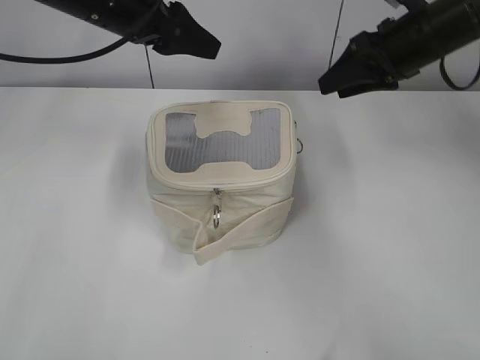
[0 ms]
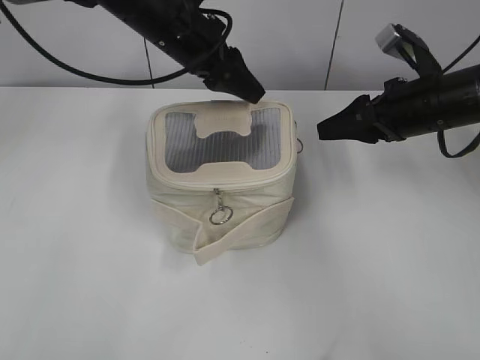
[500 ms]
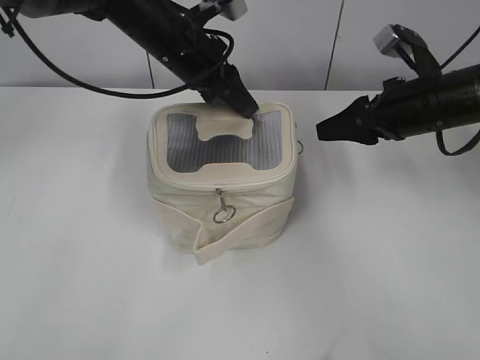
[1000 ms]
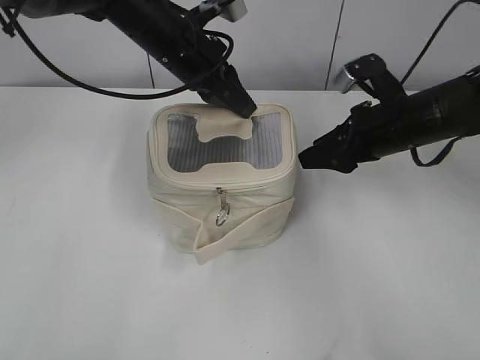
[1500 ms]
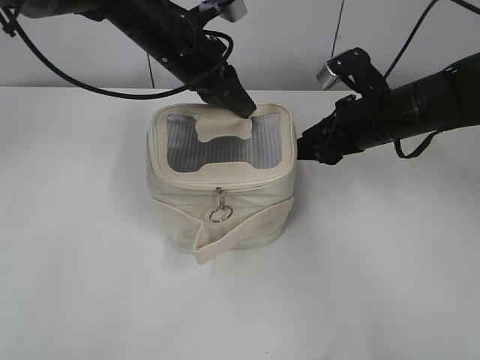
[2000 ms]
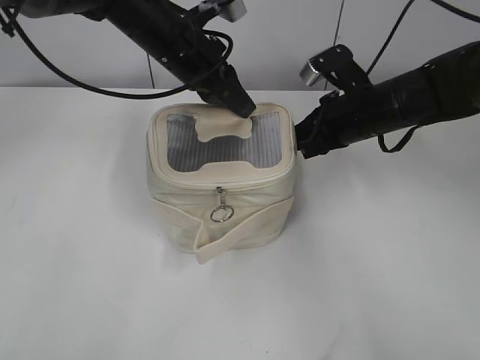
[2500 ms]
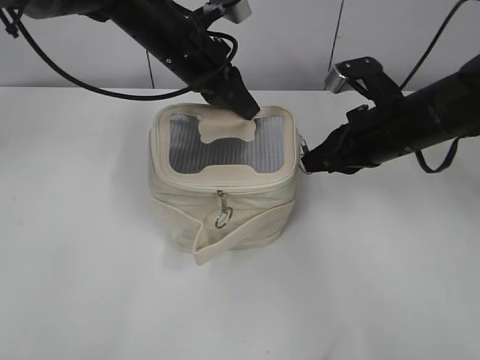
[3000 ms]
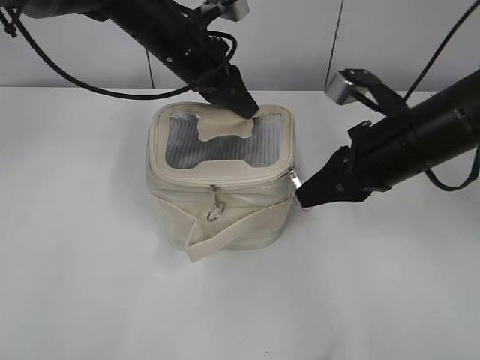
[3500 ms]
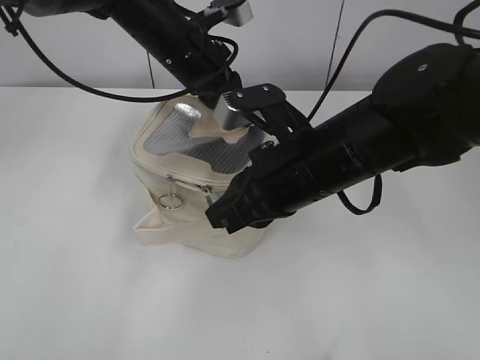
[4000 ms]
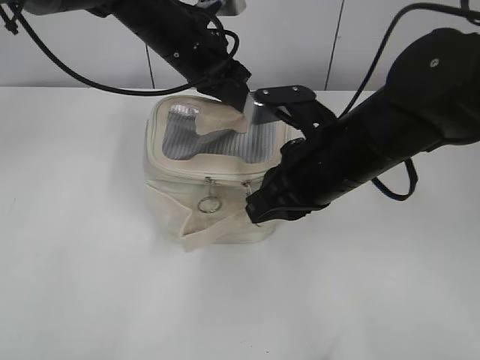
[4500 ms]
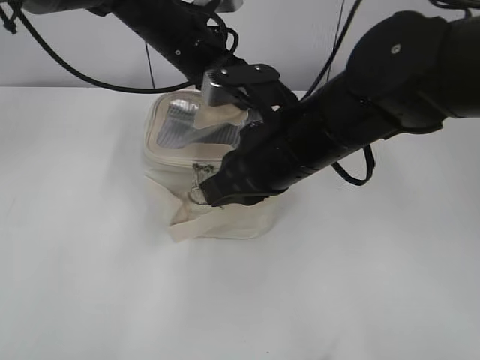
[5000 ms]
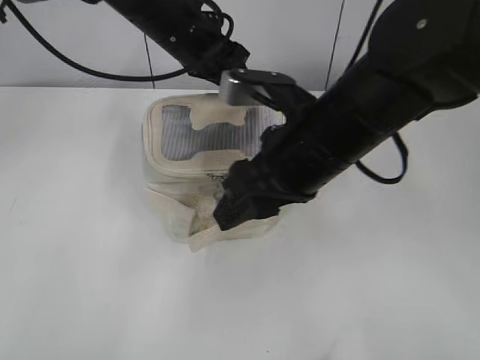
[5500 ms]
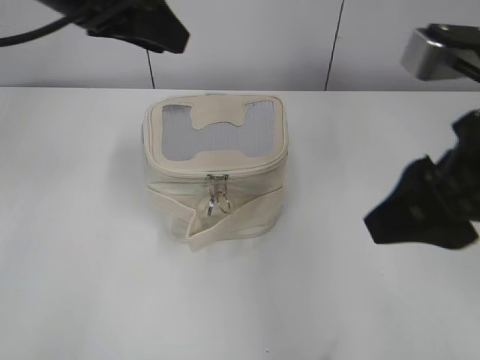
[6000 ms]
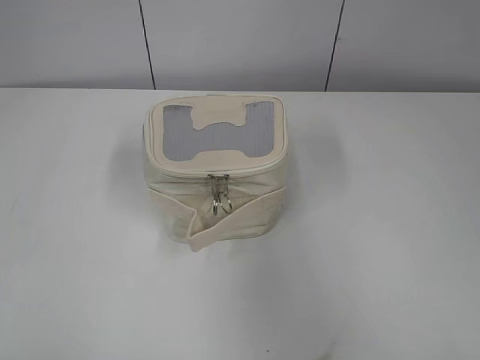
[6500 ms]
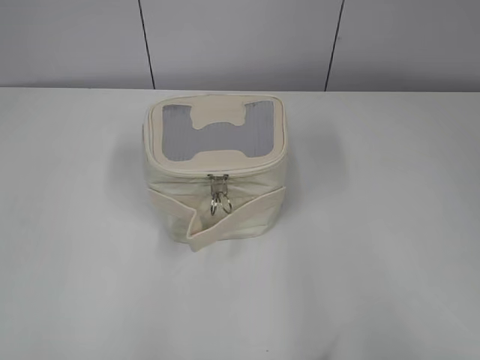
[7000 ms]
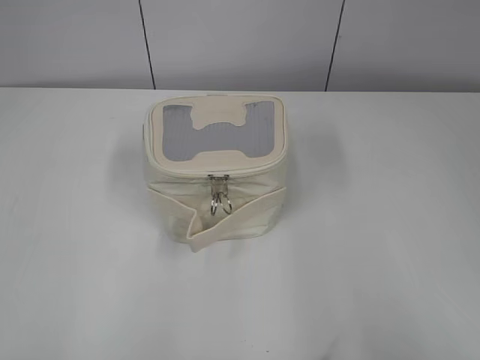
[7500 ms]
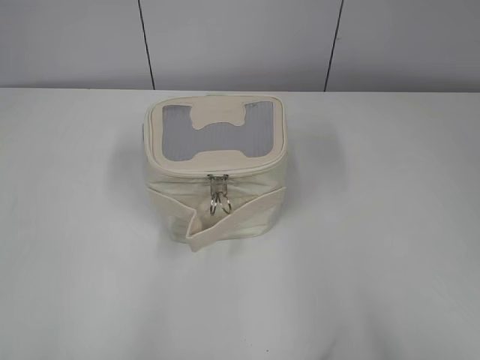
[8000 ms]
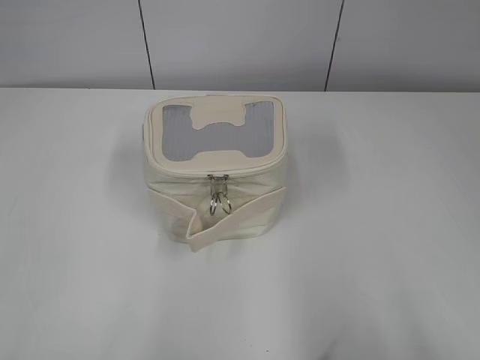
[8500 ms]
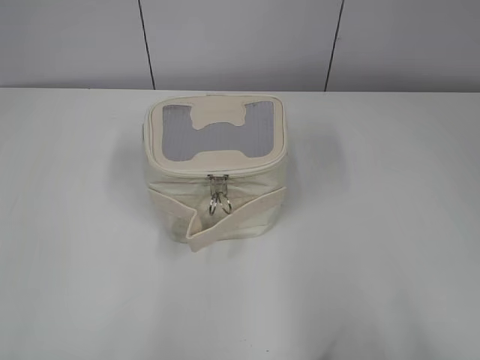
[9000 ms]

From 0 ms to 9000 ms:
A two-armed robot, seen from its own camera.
Step, from 0 ms to 5000 ms: Zip up the bag with your right hand.
From 0 ms to 2000 ms: The right gripper travels downward and backward by some 10 cm, while the left gripper heads to the right and downward, covering roughly 10 cm, and closes.
From 2000 ms to 4500 ms: The right gripper moves backward and to the left, approximately 15 cm, and closes up.
From 4500 ms to 7000 ms: The left gripper heads backward and to the left, covering approximately 50 cm, and opens its fingers. Meanwhile the right gripper is displaced backward and to the right by approximately 30 cm, and opens its fingers.

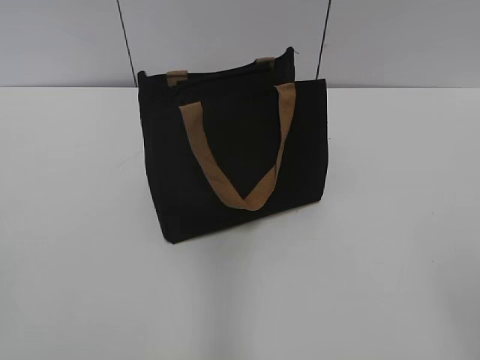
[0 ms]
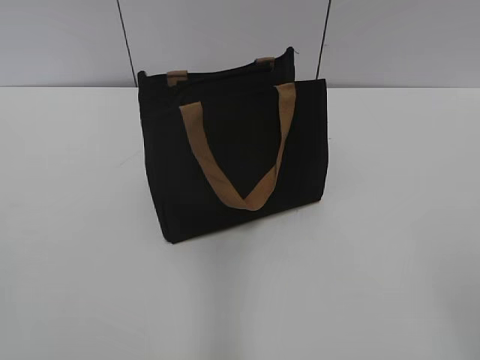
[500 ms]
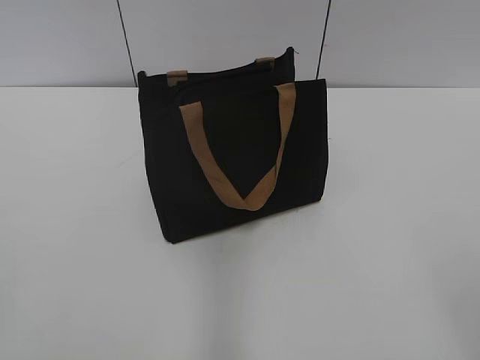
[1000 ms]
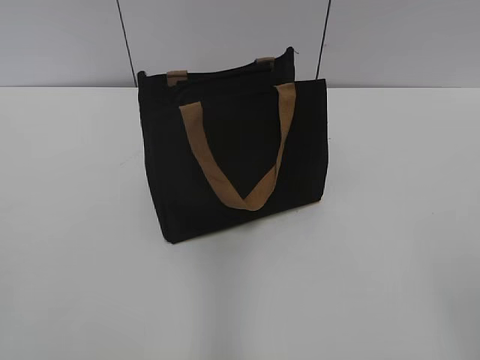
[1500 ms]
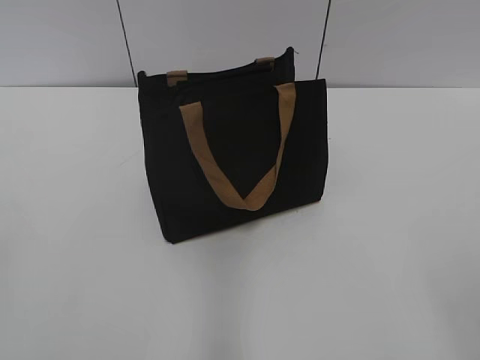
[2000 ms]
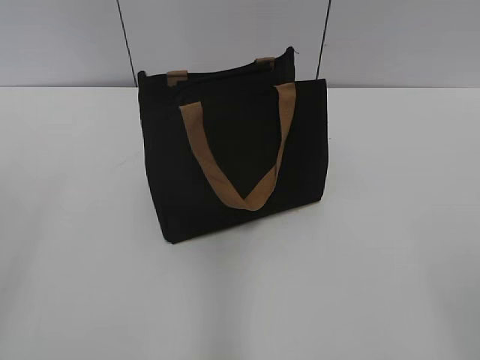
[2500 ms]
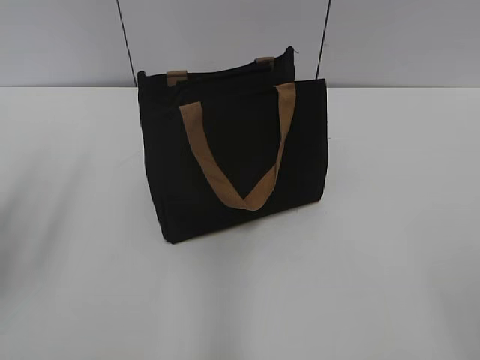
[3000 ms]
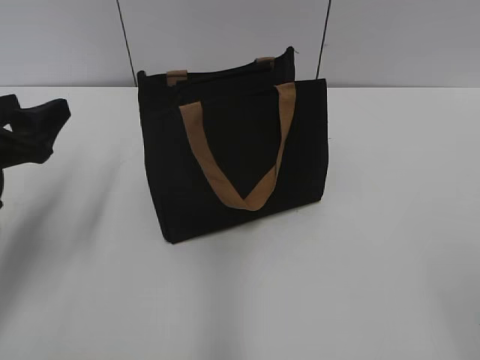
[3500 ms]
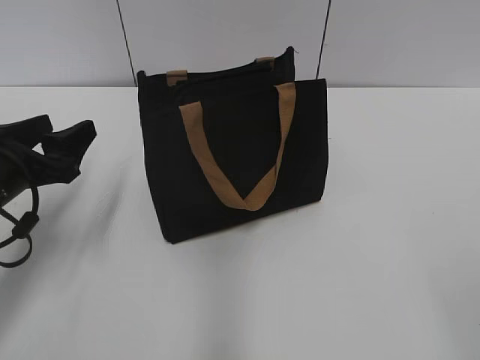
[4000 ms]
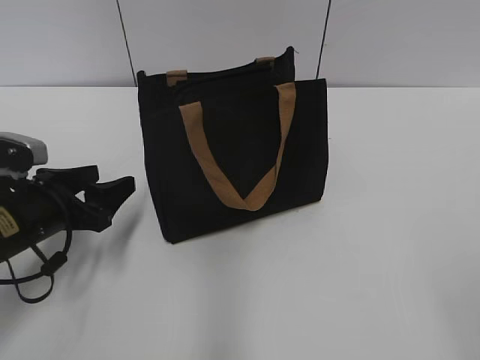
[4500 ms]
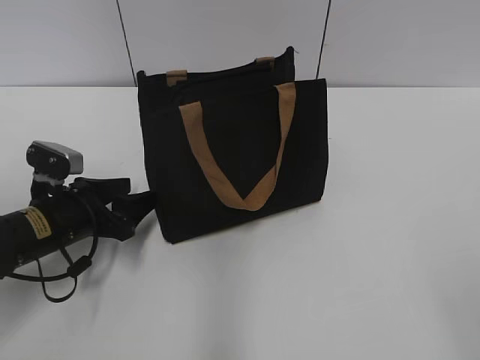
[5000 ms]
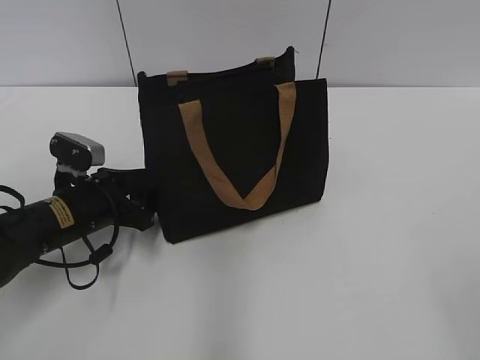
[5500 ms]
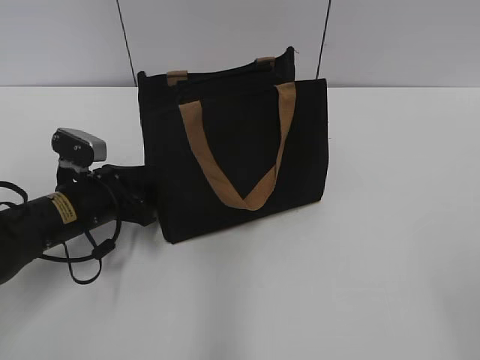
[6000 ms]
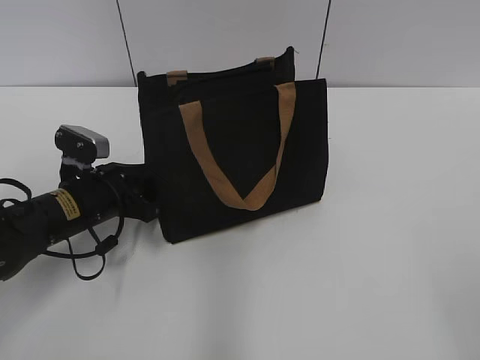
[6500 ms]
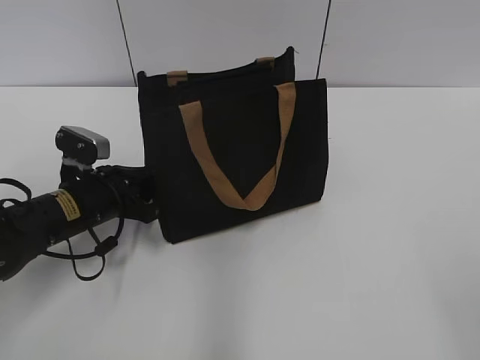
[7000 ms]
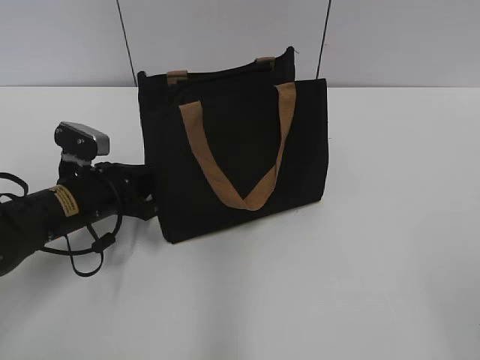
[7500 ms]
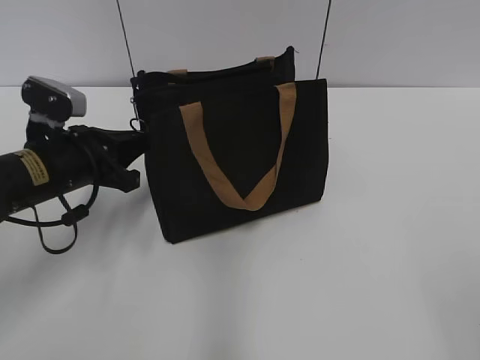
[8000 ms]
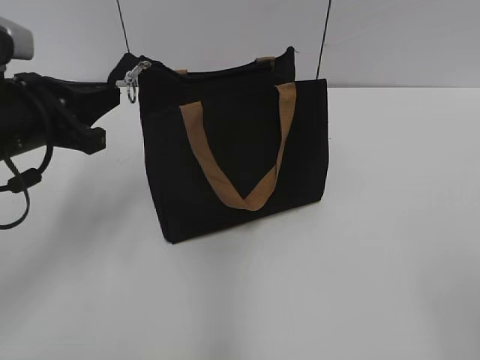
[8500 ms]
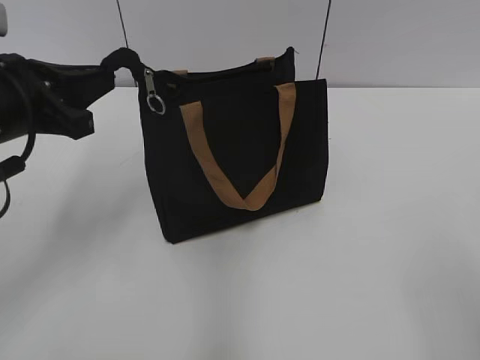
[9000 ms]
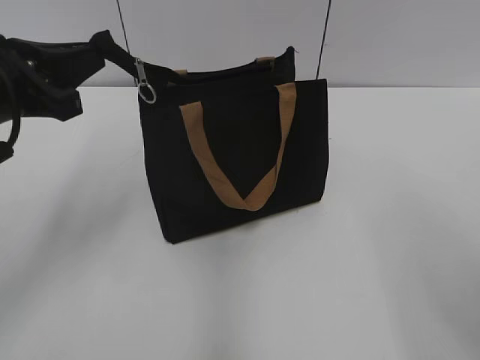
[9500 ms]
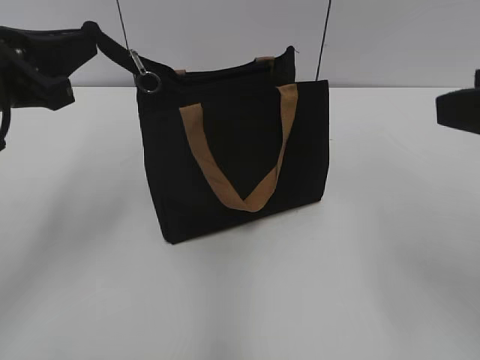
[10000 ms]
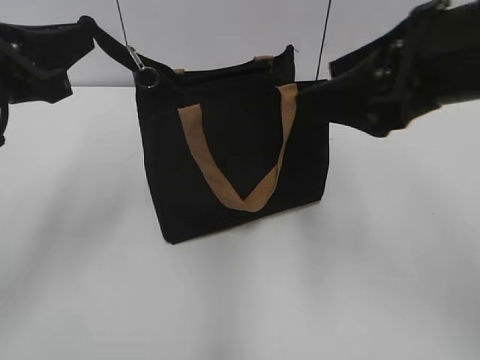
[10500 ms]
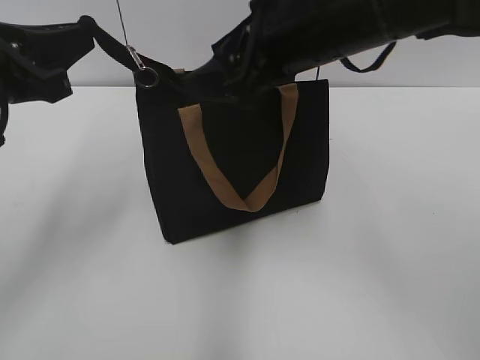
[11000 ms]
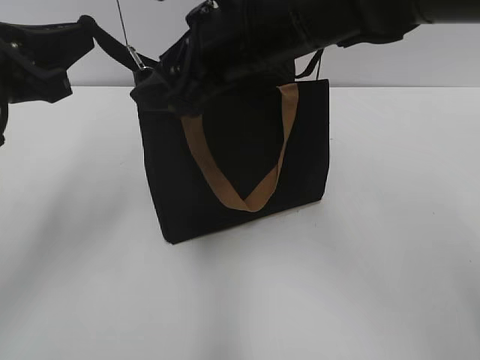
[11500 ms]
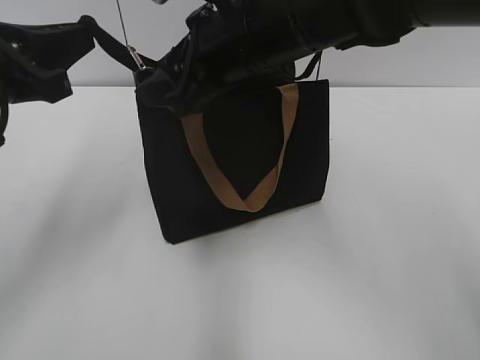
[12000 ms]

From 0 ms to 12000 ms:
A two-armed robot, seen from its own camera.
From 2000 ms to 4000 ms: The left gripper travels forward and downward by some 30 cm.
From 4000 ms to 6000 ms: The left gripper goes about 10 cm downward and to the right, and closes.
From 6000 ms to 8000 ms: The left gripper heads upward, covering some 5 cm, and closes.
From 8000 ms to 10000 ms: The right gripper is displaced forward by about 20 cm; the left gripper shifts approximately 15 cm upward and backward.
From 10000 ms to 12000 ms: The right gripper is displaced to the left and forward by about 25 cm.

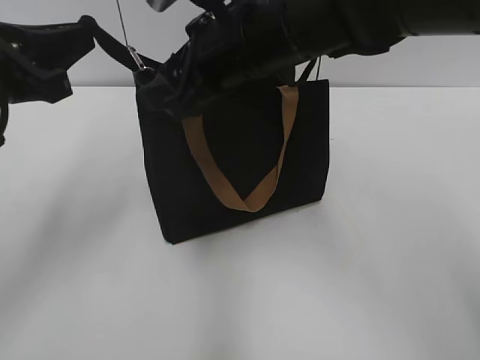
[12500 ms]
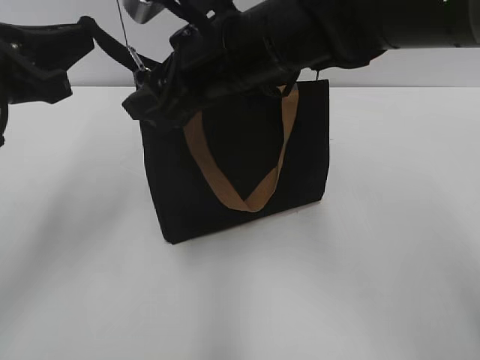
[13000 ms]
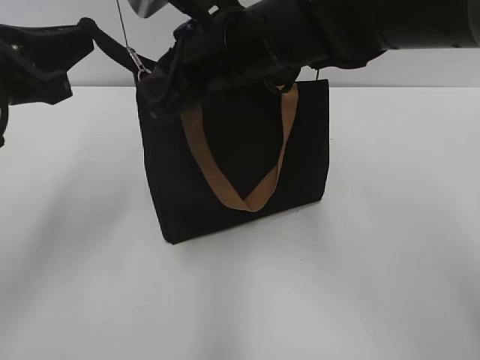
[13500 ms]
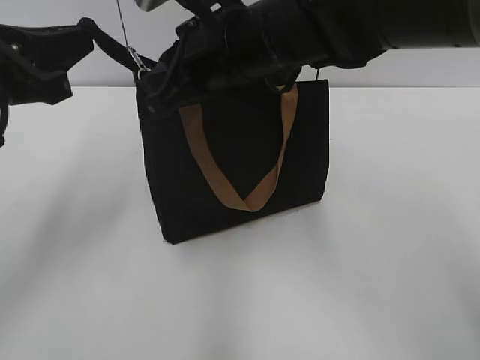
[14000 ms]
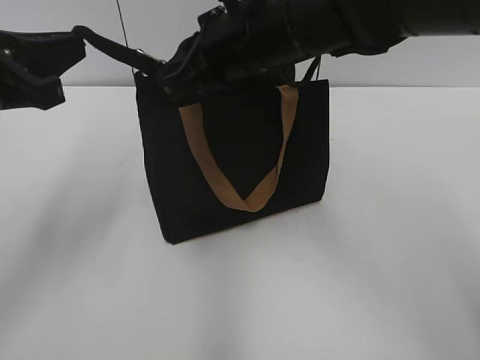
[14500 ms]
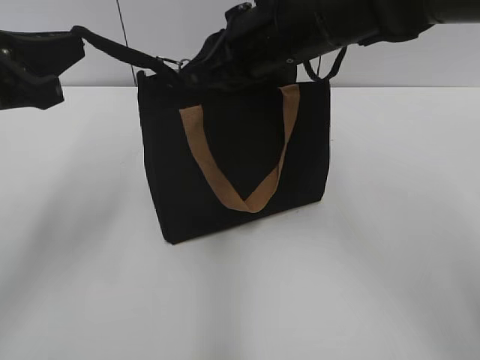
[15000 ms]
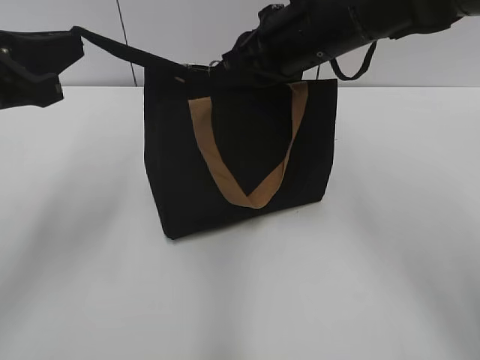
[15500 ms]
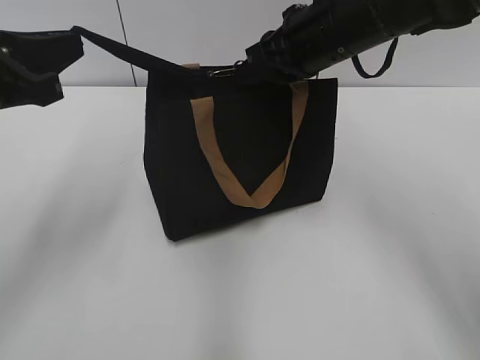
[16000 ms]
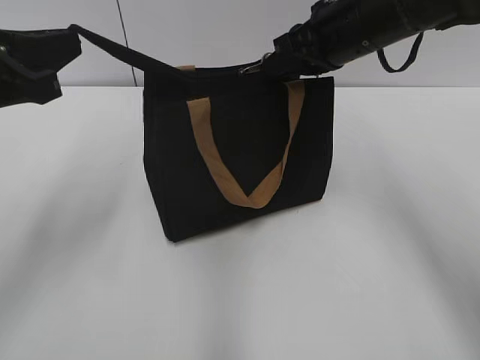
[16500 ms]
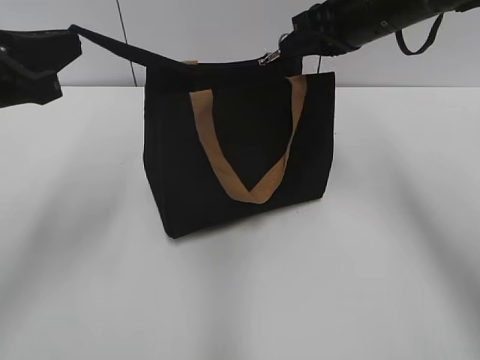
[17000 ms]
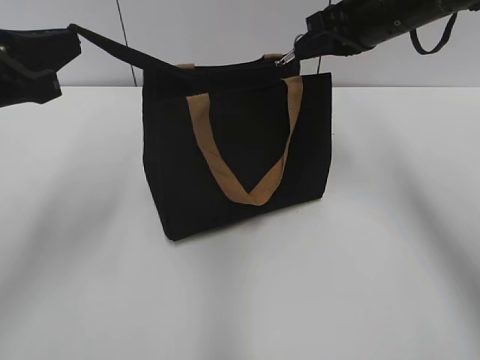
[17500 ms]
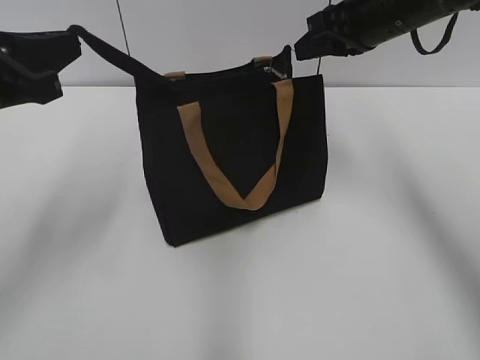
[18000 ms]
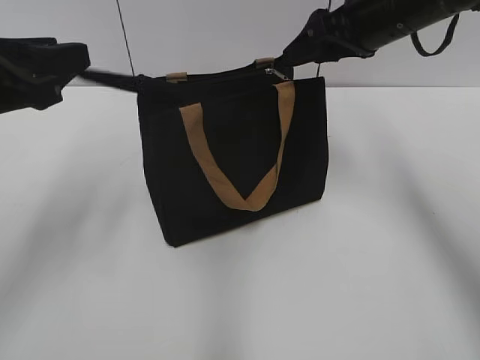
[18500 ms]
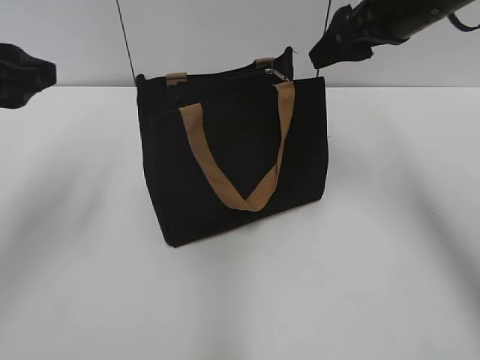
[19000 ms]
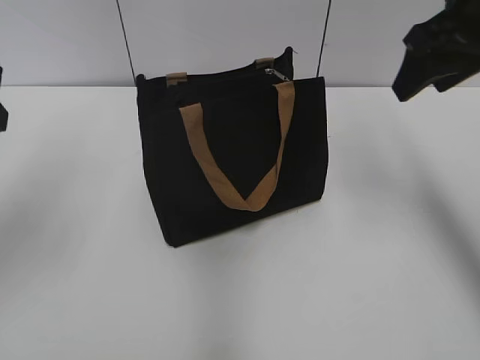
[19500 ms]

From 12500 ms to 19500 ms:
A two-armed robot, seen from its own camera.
Step, from 12500 ms to 17500 ms: Zip up the bag with your right hand.
From 12500 ms to 14500 ms: The right gripper closes.
From 14500 ms to 16000 ms: The right gripper travels to the right by approximately 10 cm.
From 16000 ms to 17500 ms: The right gripper is displaced to the right by approximately 5 cm.
From 17500 ms to 19500 ms: The right gripper moves backward, approximately 5 cm, and opens up. Meanwhile the left gripper opens.
